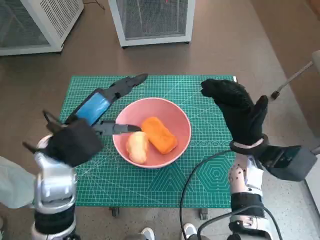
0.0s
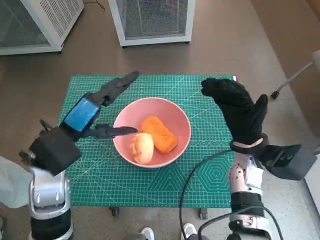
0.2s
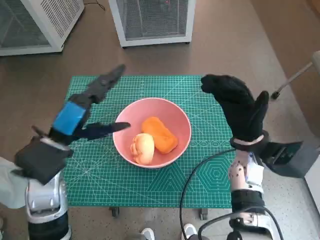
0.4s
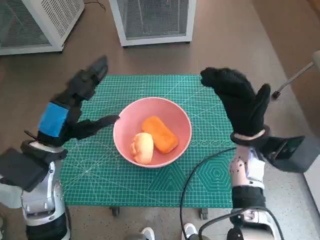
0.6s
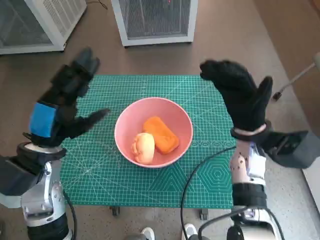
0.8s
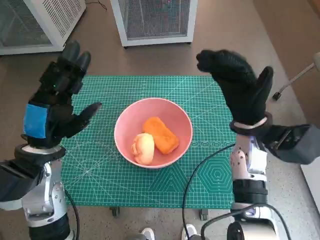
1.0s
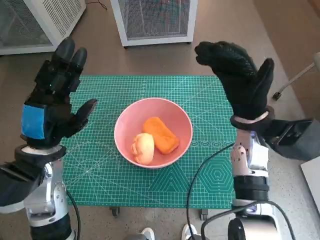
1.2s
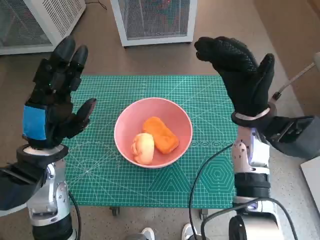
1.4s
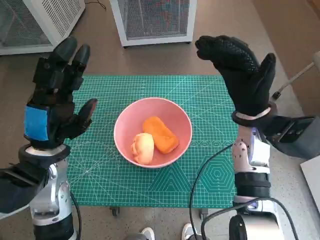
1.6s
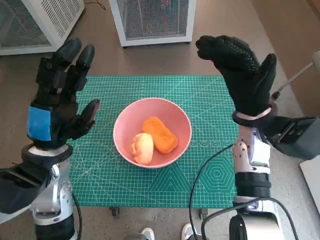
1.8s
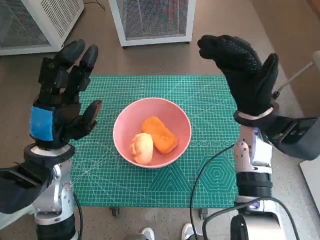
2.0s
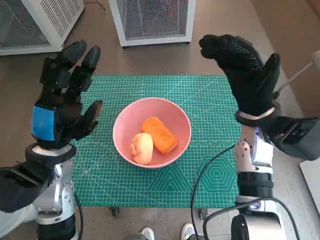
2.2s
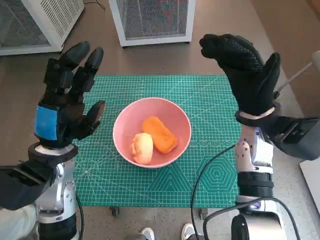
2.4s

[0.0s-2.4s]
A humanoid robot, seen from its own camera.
Task of the whole recording: Push the bowl into the center of the table and put the bread into the bowl.
0.0s to 1.2s: The left hand shifts by some 5 cm; the right hand shifts about 5 cm upward.

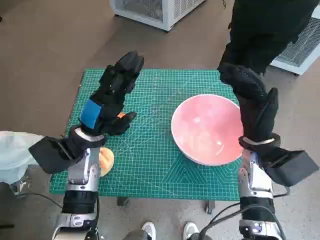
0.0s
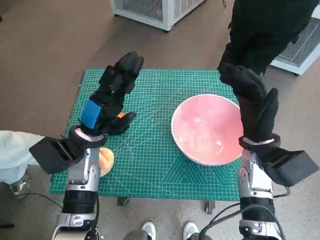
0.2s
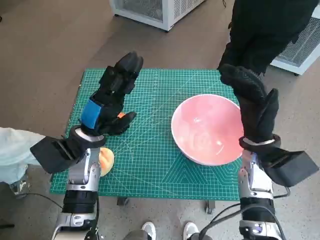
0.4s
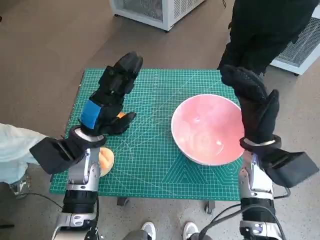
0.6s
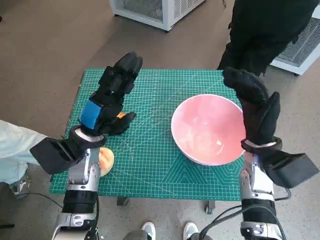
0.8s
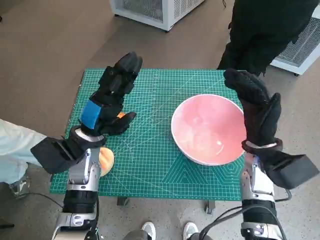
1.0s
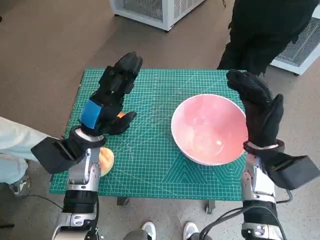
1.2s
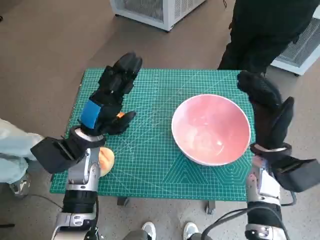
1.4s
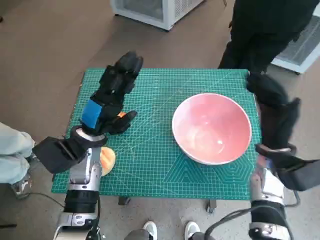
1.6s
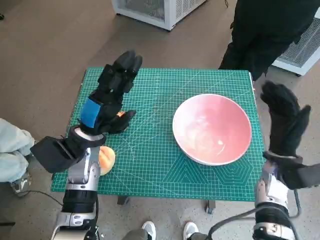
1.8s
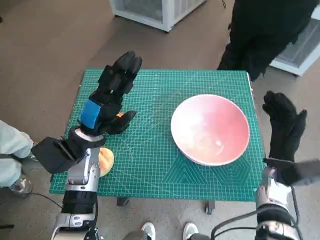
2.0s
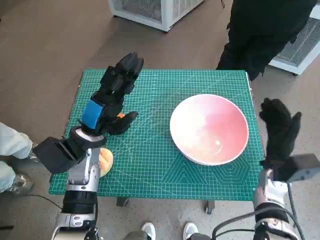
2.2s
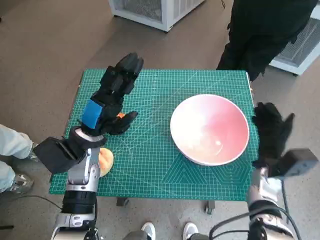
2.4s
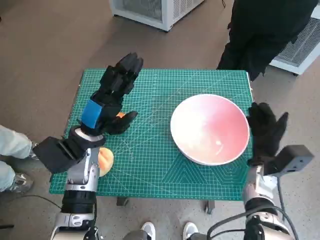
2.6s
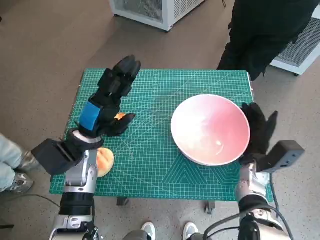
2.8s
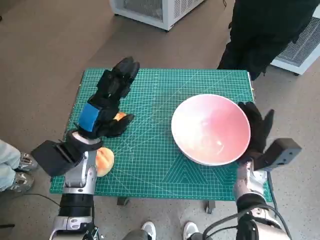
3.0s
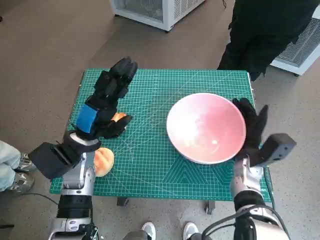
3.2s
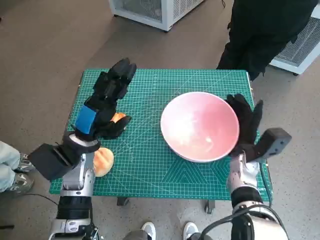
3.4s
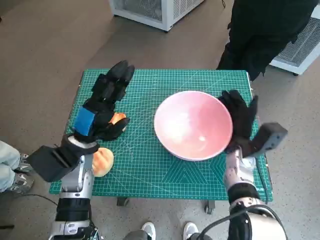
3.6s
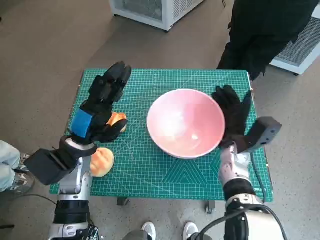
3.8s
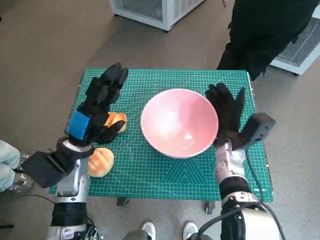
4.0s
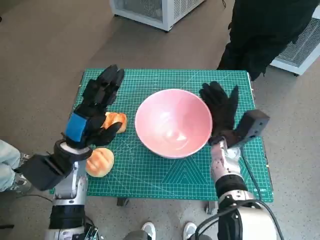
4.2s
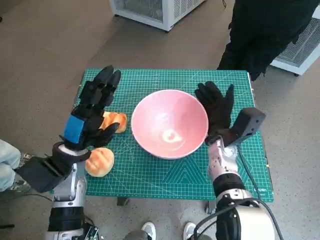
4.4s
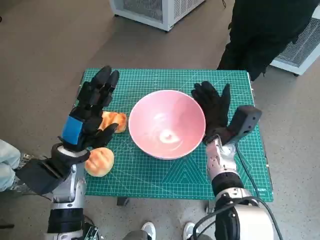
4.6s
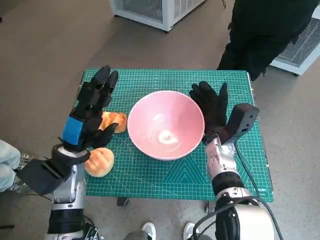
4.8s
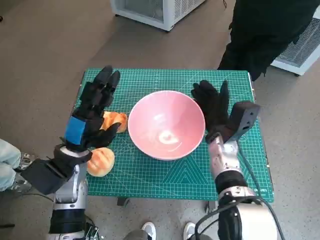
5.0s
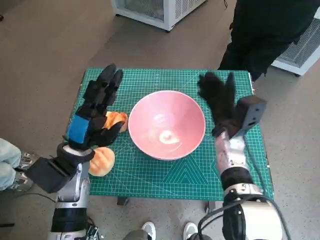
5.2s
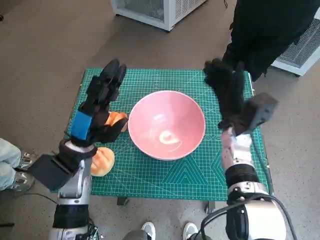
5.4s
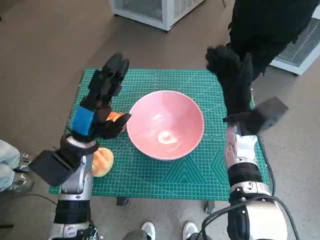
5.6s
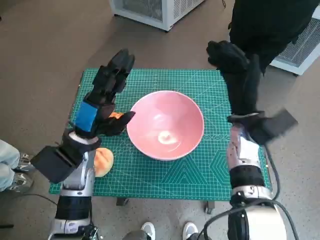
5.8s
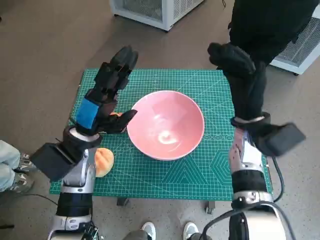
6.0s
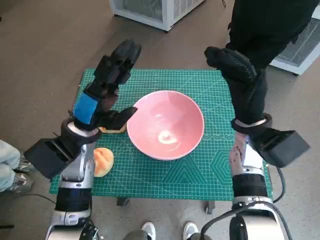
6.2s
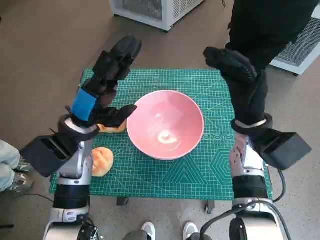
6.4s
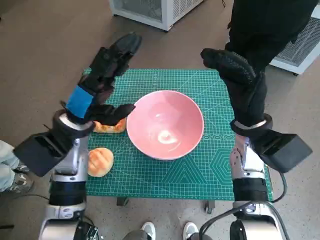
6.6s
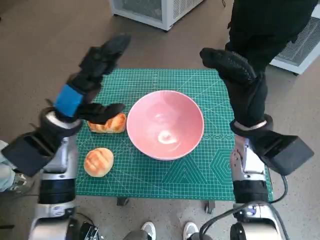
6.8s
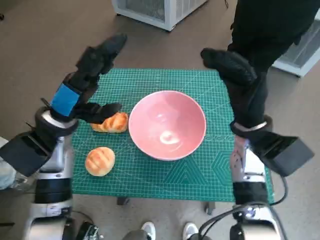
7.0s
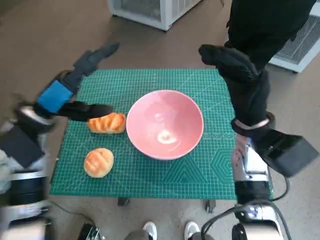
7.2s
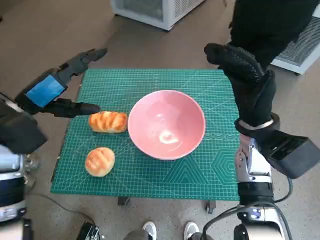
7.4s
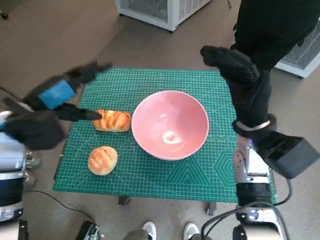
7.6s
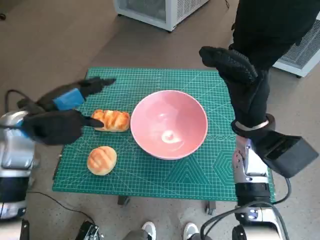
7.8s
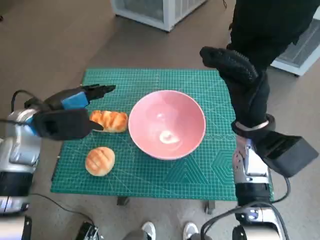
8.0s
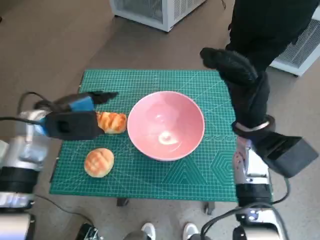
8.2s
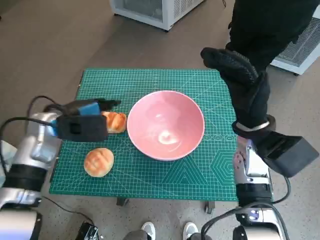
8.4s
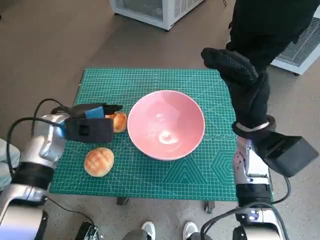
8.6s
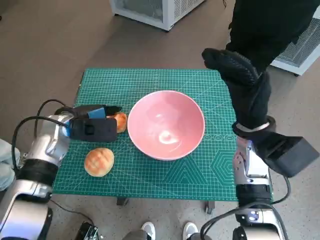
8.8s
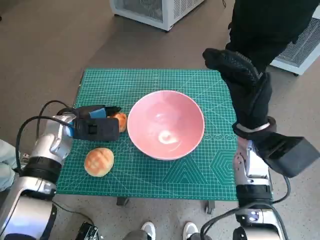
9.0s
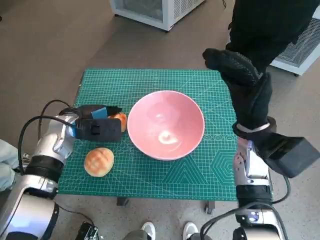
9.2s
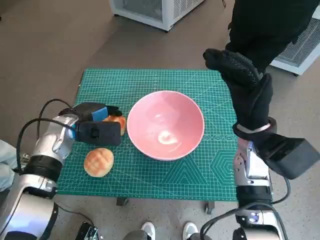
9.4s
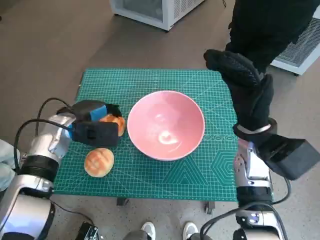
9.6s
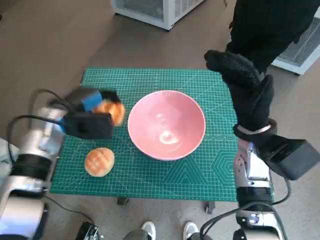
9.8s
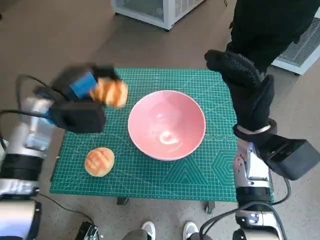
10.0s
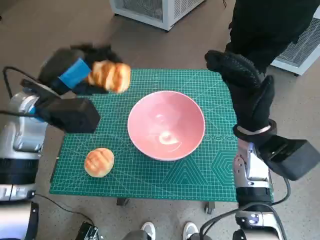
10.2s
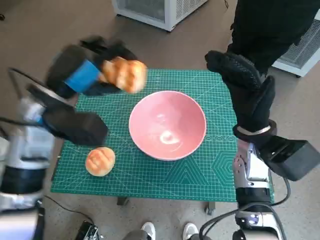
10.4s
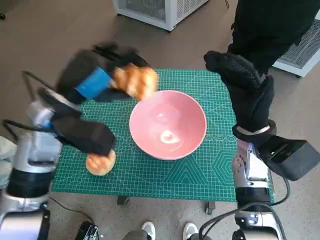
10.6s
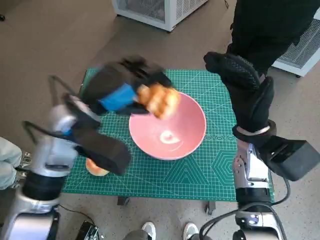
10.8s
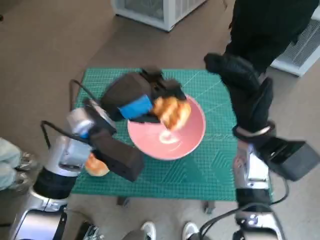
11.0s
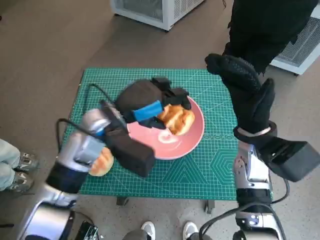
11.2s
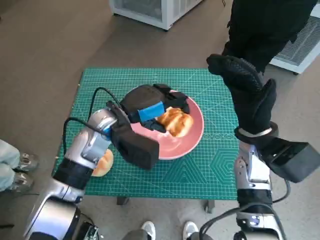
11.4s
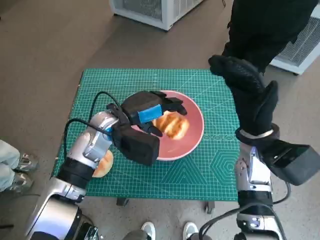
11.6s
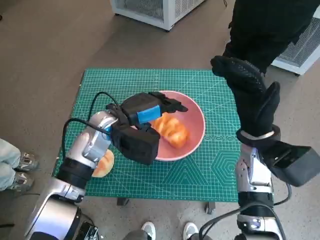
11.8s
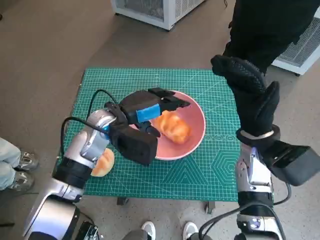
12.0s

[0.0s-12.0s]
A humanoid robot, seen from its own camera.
Task of the whole recording: Push the bowl into the center of the table and put the bread into the bowl.
Step, 0.0s to 5.0s: Move the pink bowl to the center of table with right hand.
Step, 5.2s to 9.4s: Grasp the long bread with left hand.
1.6s to 3.0s: The right hand is displaced downward by roughly 10 cm.
3.0s to 4.4s: The right hand heads to the left, covering approximately 5 cm.
4.4s to 6.0s: The right hand is displaced upward by roughly 10 cm.
6.0s to 7.6s: The left hand heads to the left and upward, covering about 10 cm.
7.6s to 9.0s: The left hand shifts some 10 cm downward and forward.
9.0s to 10.4s: The left hand goes about 10 cm upward.
10.4s to 12.0s: The left hand is displaced to the right and downward by some 10 cm.

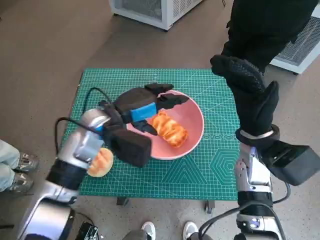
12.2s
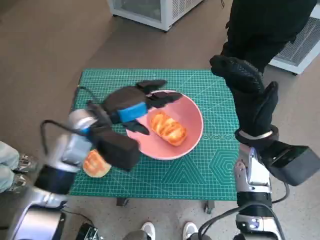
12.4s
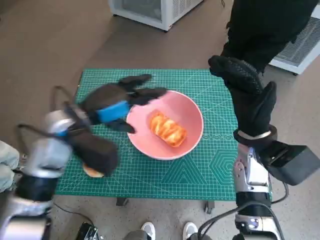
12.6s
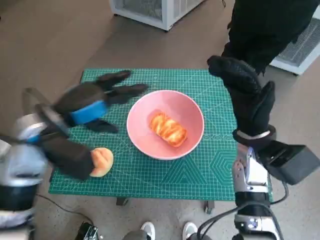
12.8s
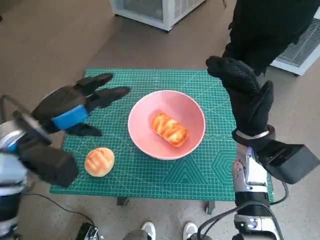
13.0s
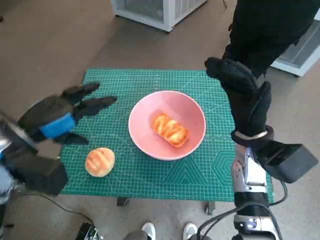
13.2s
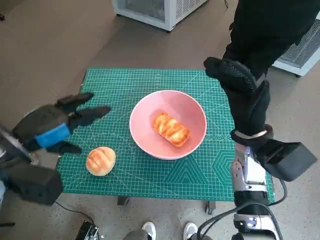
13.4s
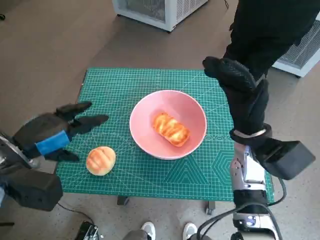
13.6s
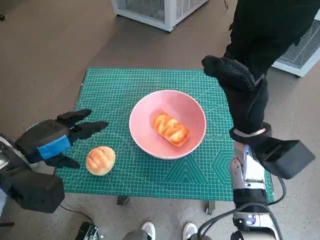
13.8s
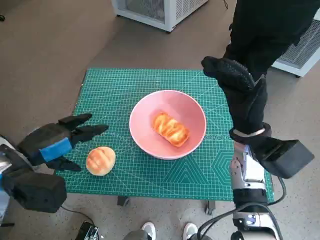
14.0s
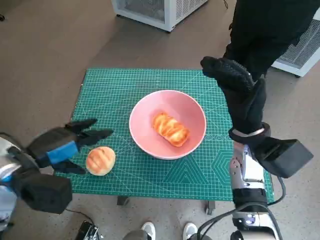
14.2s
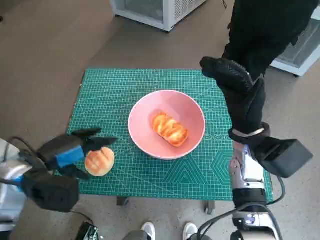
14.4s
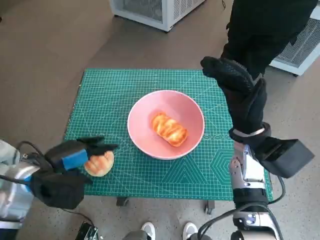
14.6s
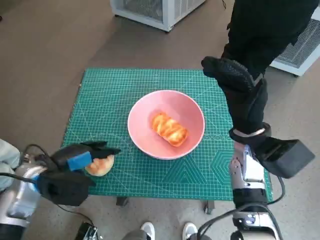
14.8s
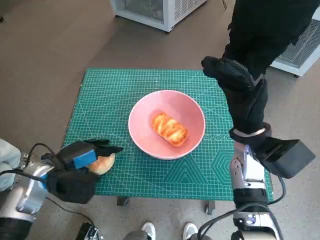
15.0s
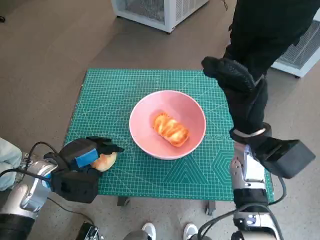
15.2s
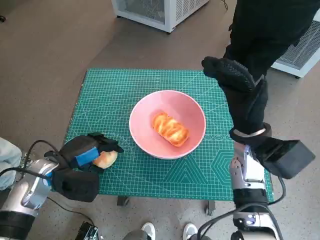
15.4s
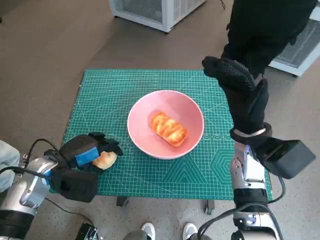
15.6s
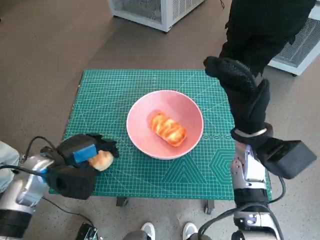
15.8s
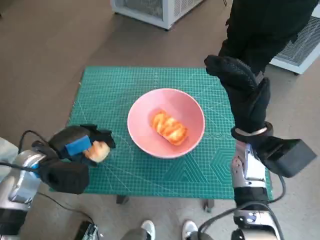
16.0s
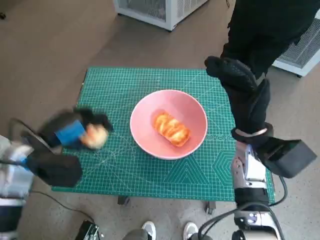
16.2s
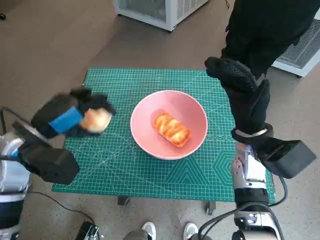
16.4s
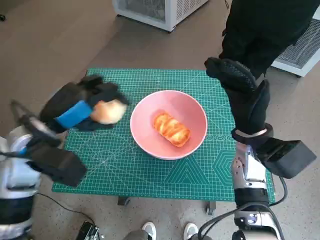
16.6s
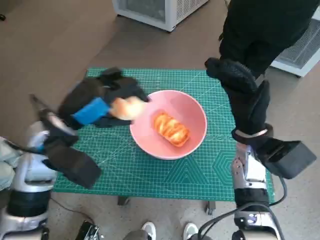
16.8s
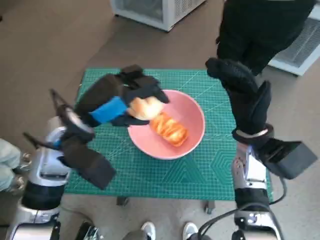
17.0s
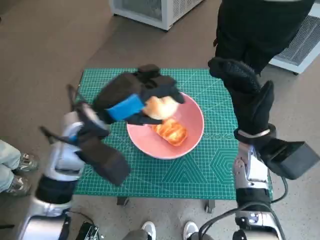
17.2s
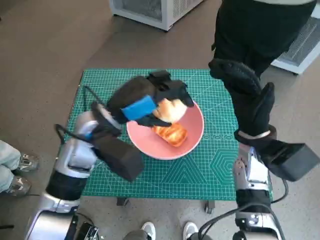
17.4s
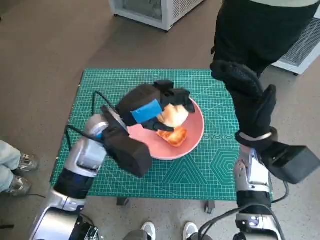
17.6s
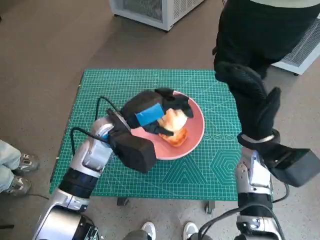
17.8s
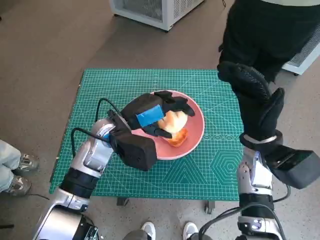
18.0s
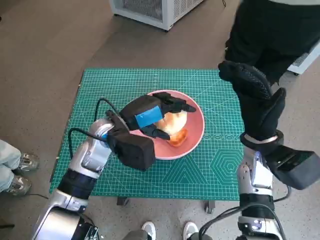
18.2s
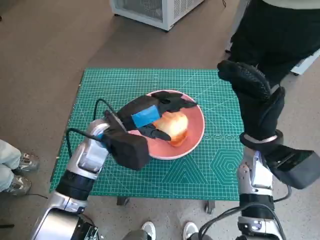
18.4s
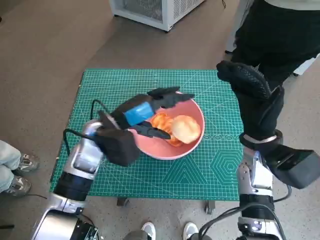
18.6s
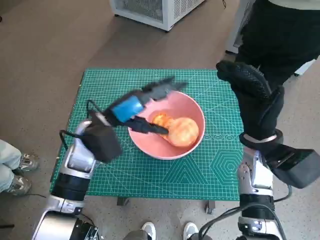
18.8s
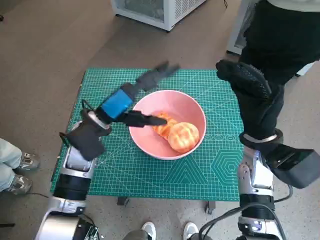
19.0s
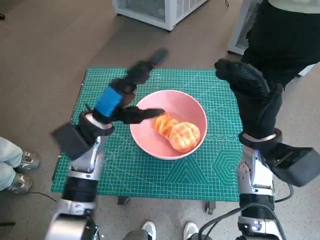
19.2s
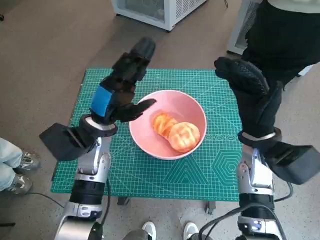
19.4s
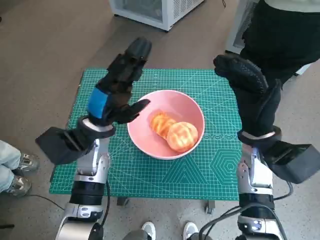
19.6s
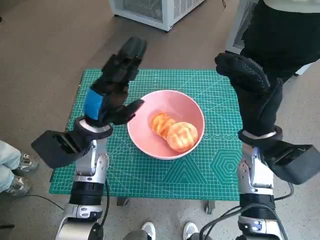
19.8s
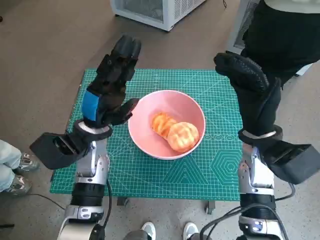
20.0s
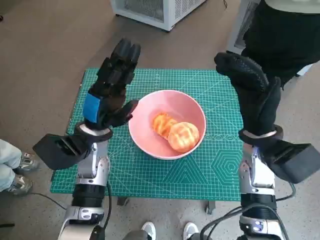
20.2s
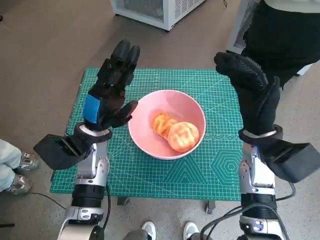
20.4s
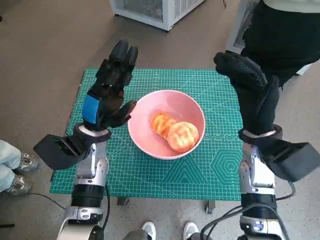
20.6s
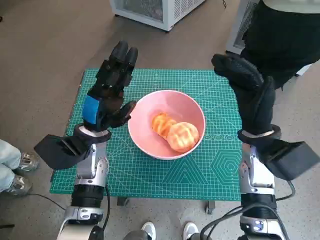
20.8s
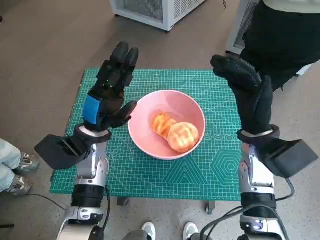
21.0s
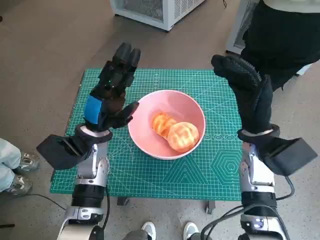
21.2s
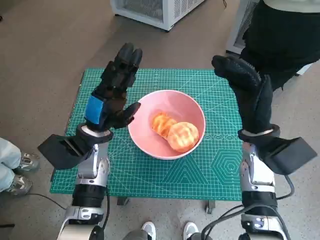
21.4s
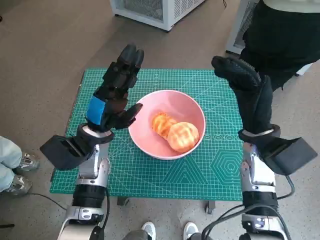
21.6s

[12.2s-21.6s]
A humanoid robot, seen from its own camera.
Task of the whole recording: Push the bowl into the center of the table and put the bread into the bowl.
Step, 12.6s to 15.0s: Grasp the round bread with left hand.
Step, 15.2s to 18.6s: Place the round bread in pink bowl with left hand.
12.2s to 13.8s: The left hand moves to the left and backward, approximately 15 cm.
13.8s to 15.4s: The left hand heads downward, covering roughly 10 cm.
15.4s to 17.0s: The left hand is displaced upward and to the right by some 15 cm.
17.0s to 18.4s: The left hand heads downward, covering roughly 5 cm.
20.0s to 21.6s: The hands make only small movements.
